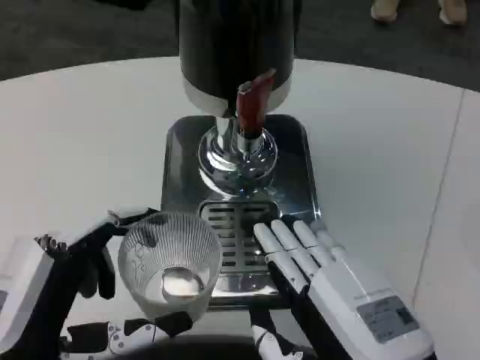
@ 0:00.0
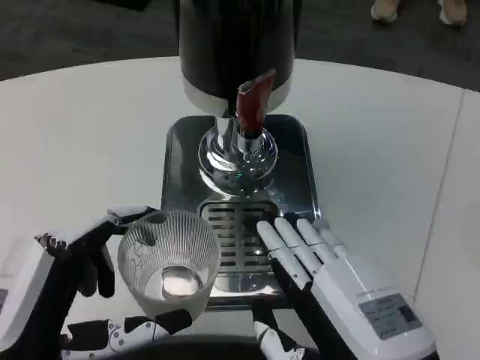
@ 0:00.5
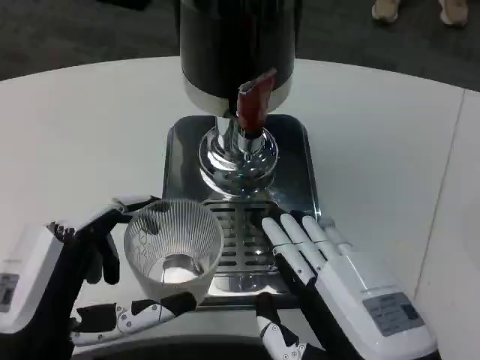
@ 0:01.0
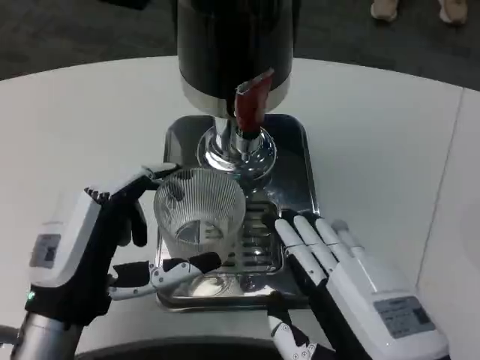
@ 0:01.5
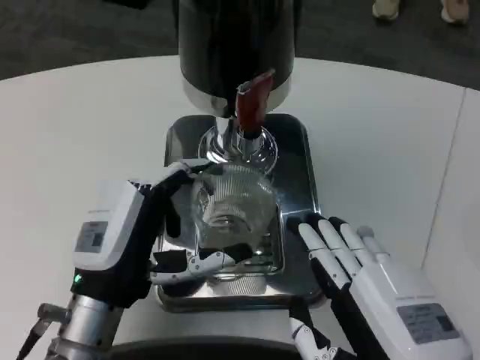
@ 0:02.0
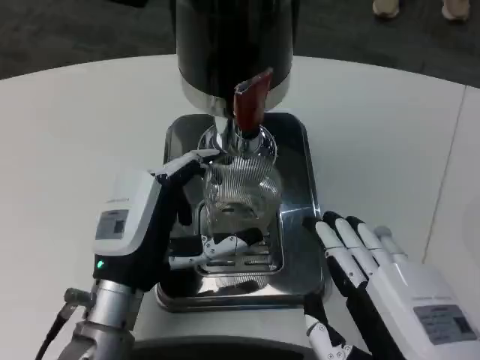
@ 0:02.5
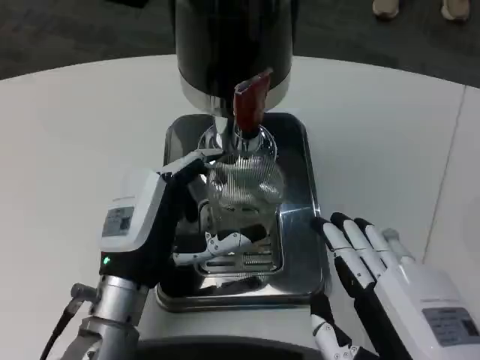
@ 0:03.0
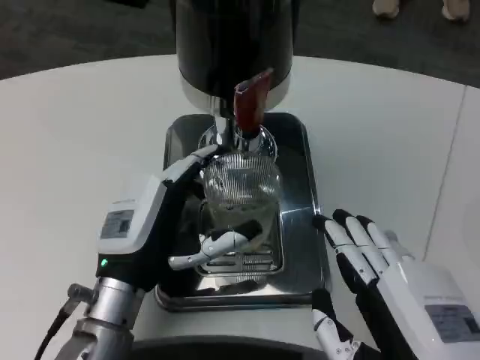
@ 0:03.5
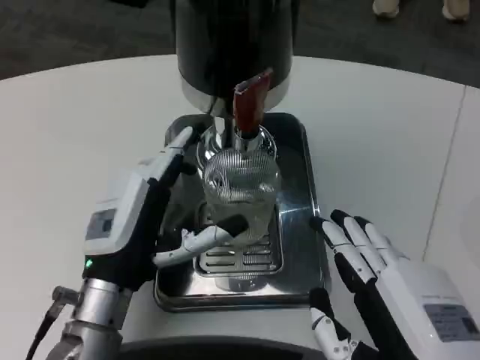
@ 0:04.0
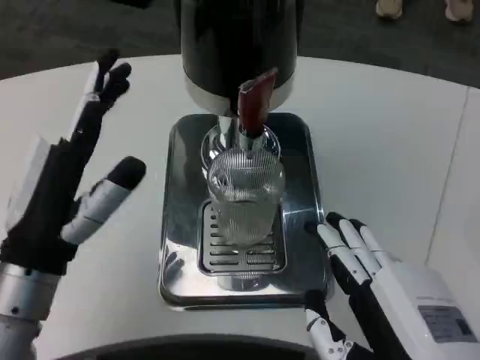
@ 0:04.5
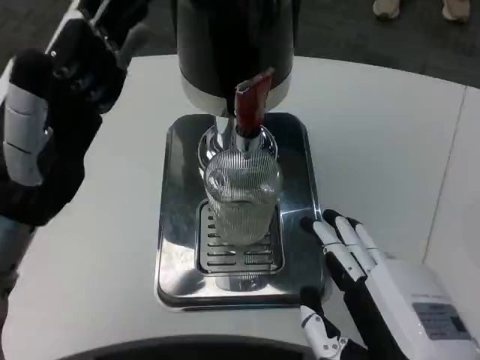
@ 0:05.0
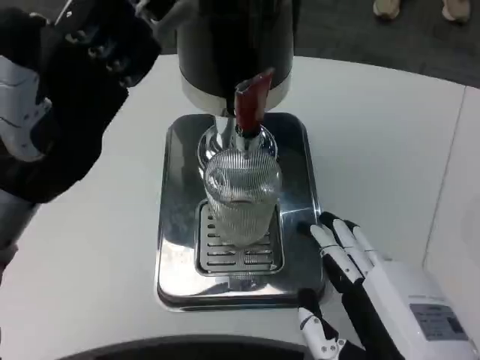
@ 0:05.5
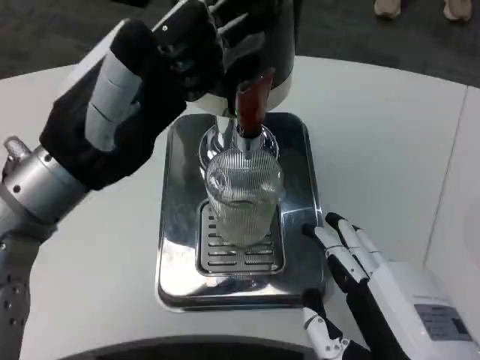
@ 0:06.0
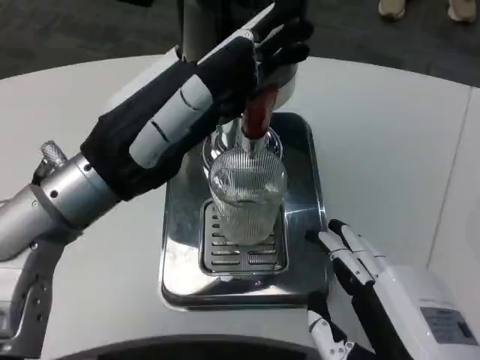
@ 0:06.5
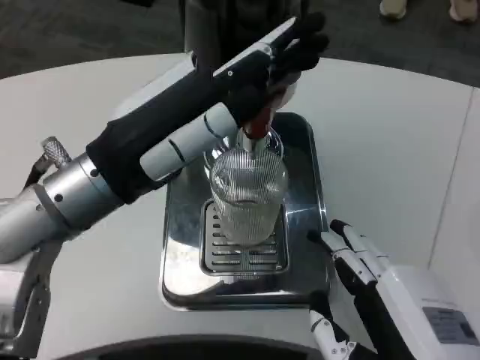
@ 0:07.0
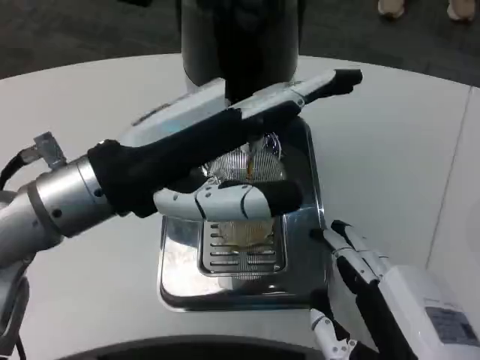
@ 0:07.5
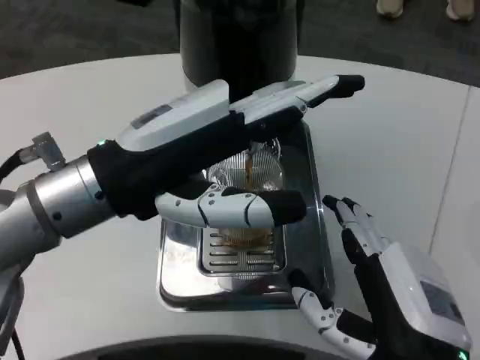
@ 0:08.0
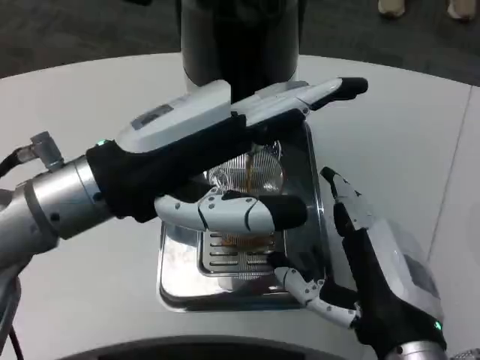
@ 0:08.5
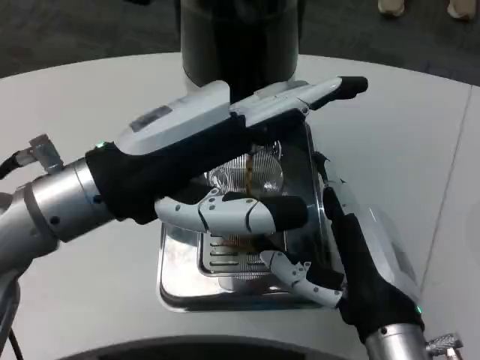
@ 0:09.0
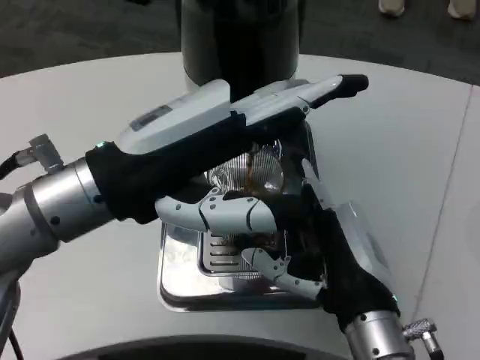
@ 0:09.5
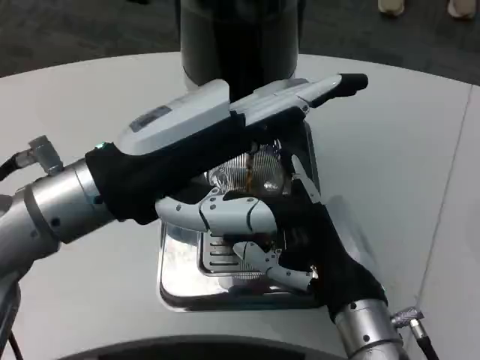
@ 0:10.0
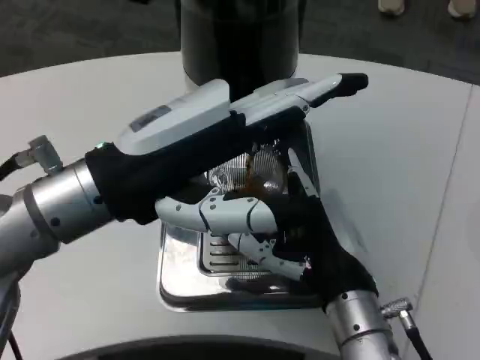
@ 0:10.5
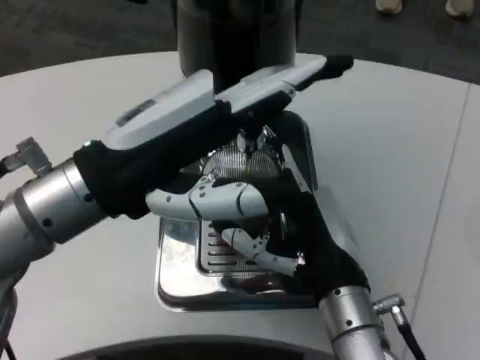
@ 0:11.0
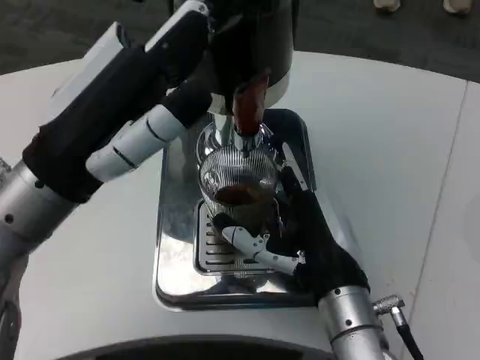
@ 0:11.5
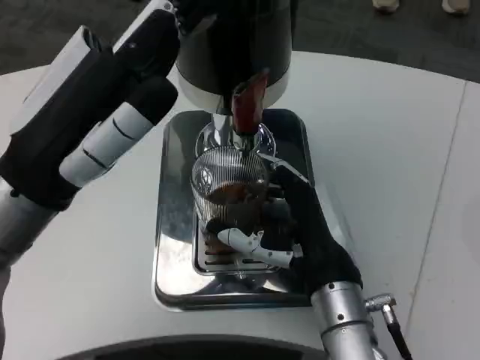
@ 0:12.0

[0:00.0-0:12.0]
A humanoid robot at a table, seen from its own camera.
Task of the whole recording: Grasp the cup under the faucet to collect the drink, then remove the cup.
0:00.0 to 0:02.0: The left hand travels forward and to the right by some 10 cm.
0:04.0 to 0:06.0: The left hand is displaced upward by roughly 15 cm.
0:08.0 to 0:10.0: The right hand travels forward by roughly 10 cm.

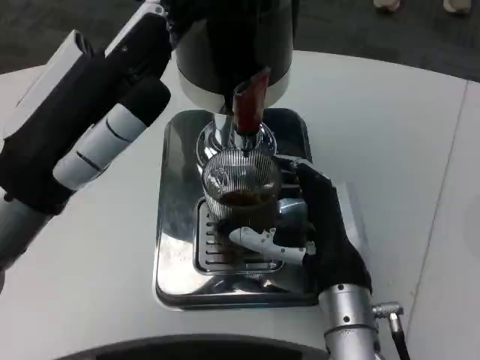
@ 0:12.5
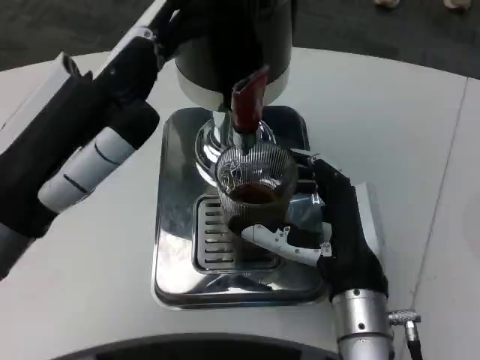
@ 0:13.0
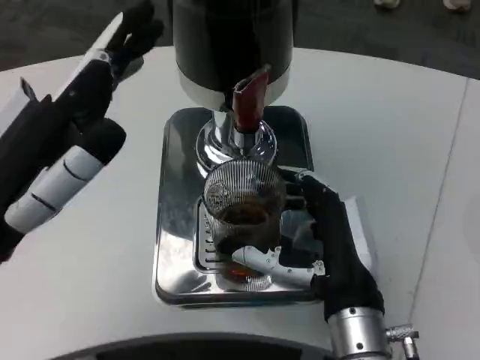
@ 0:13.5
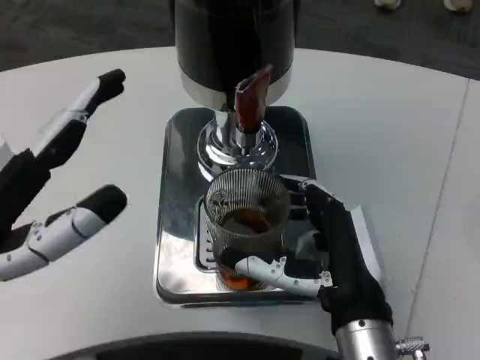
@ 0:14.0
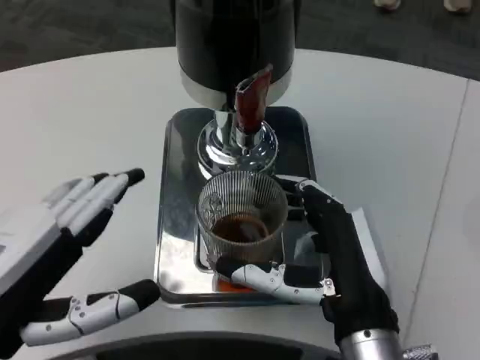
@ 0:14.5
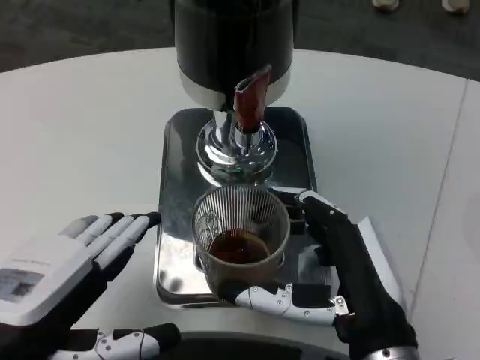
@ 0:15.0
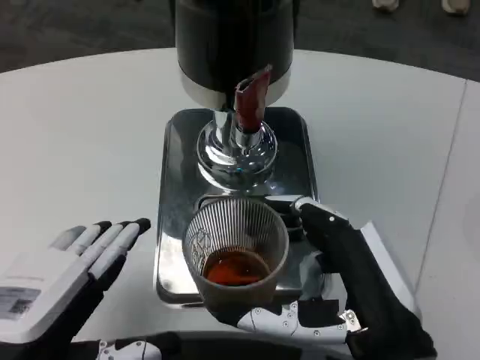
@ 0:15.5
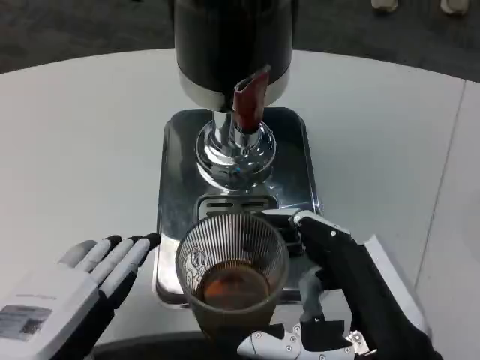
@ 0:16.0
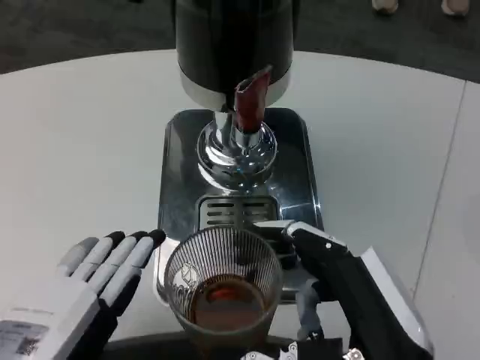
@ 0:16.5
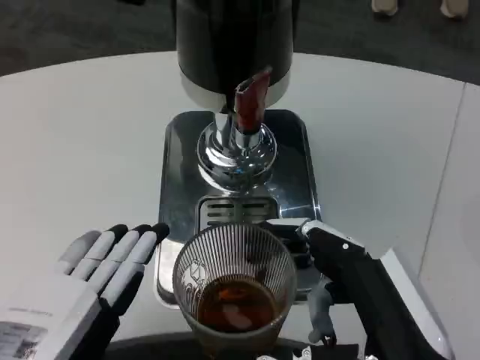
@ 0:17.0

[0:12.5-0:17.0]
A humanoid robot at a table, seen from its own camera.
Task of the whole recording: Grasp the cup under the faucet to collect the drink, then remove the cup.
0:12.5 to 0:14.5: The right hand is displaced backward by about 5 cm. The left hand goes about 10 cm backward and downward.
0:14.5 to 0:17.0: The left hand shifts roughly 5 cm backward; the right hand shifts about 10 cm backward.

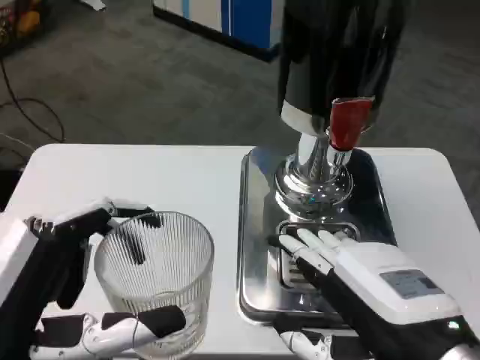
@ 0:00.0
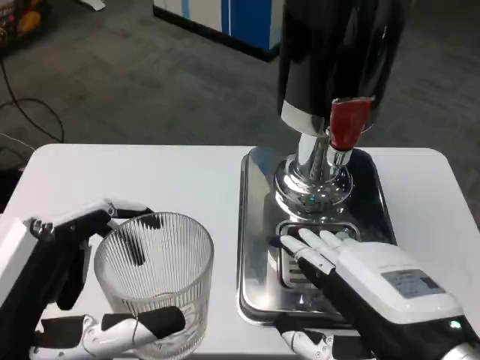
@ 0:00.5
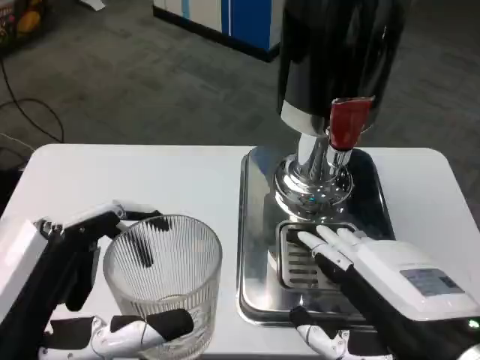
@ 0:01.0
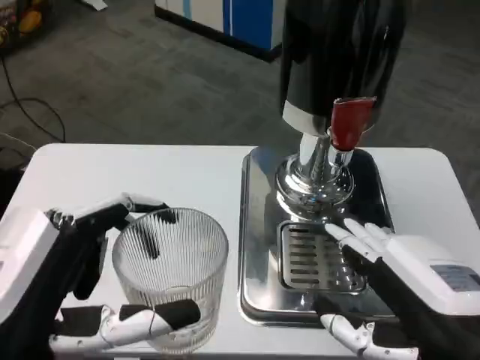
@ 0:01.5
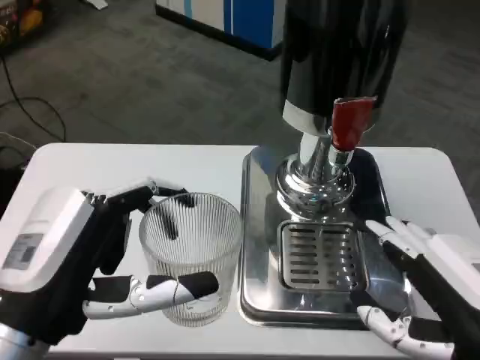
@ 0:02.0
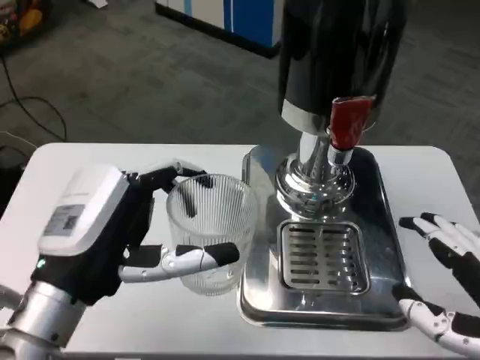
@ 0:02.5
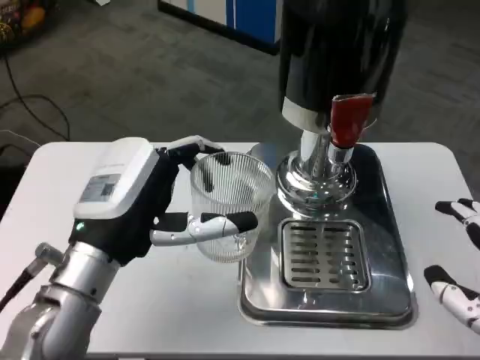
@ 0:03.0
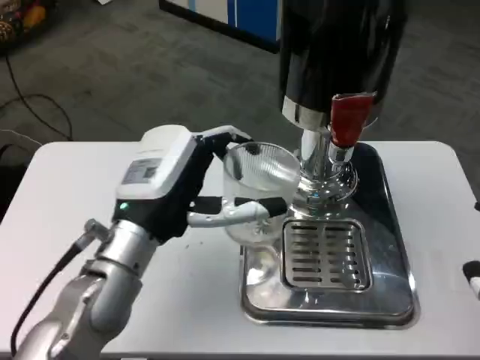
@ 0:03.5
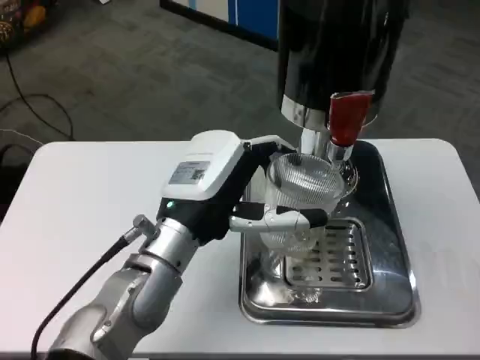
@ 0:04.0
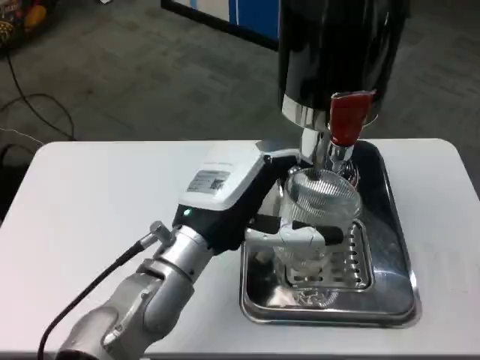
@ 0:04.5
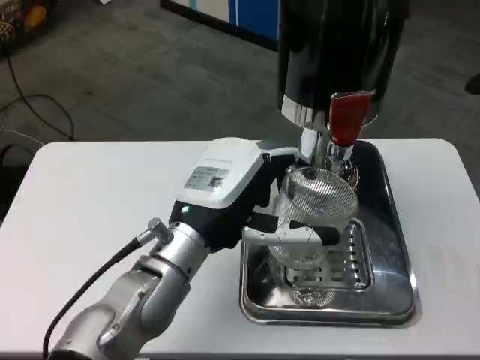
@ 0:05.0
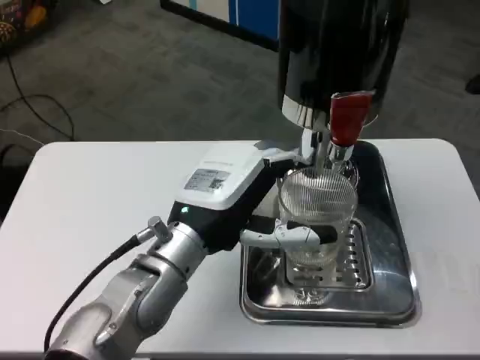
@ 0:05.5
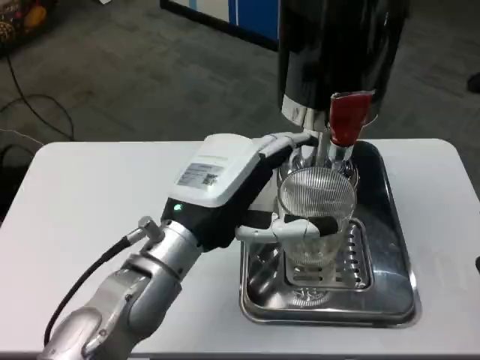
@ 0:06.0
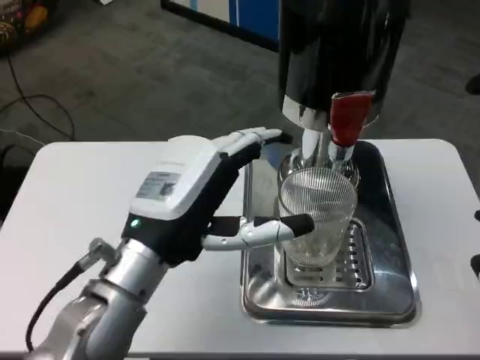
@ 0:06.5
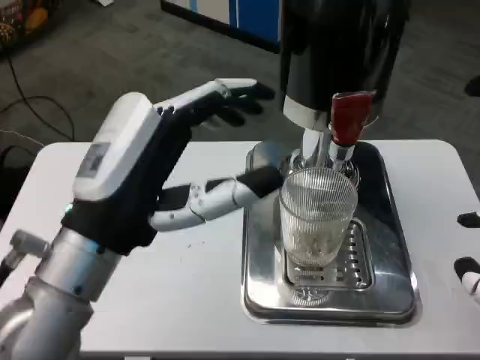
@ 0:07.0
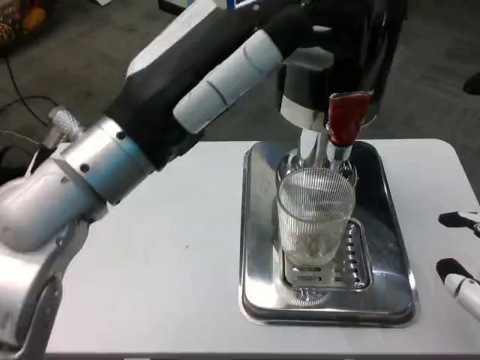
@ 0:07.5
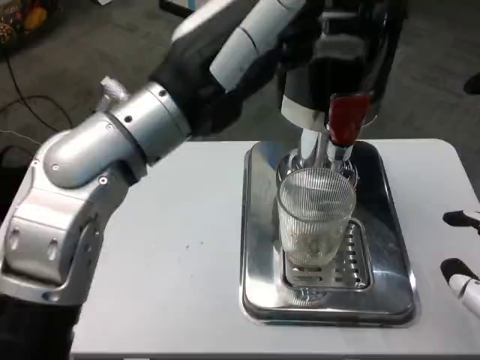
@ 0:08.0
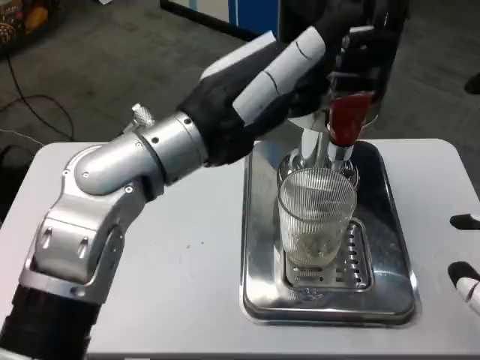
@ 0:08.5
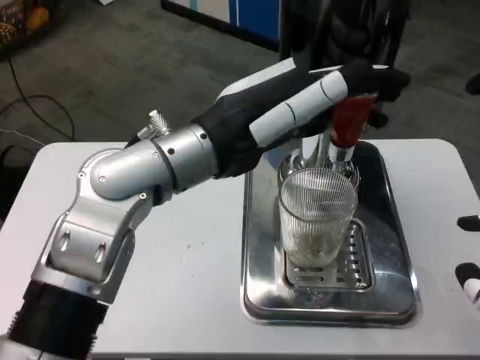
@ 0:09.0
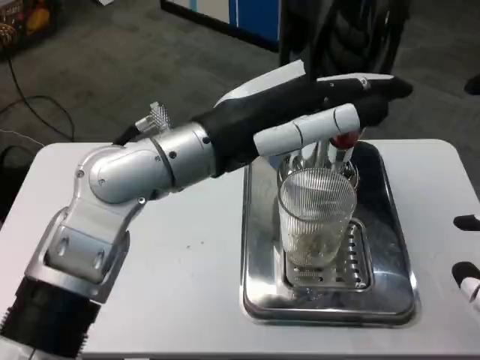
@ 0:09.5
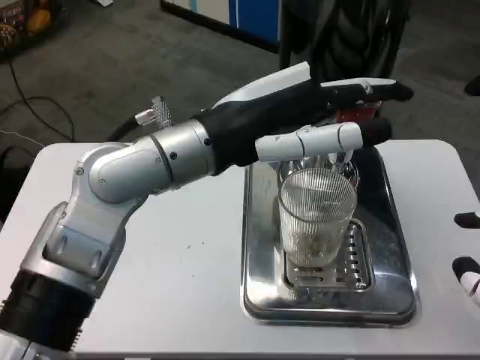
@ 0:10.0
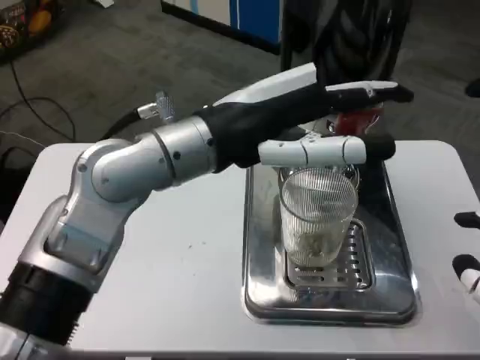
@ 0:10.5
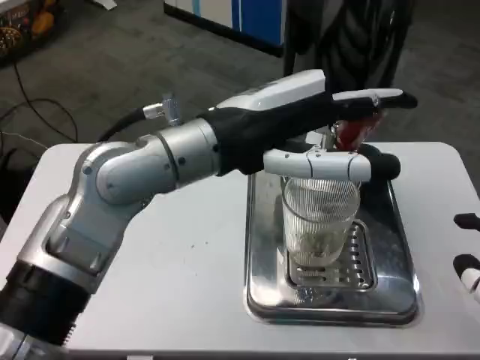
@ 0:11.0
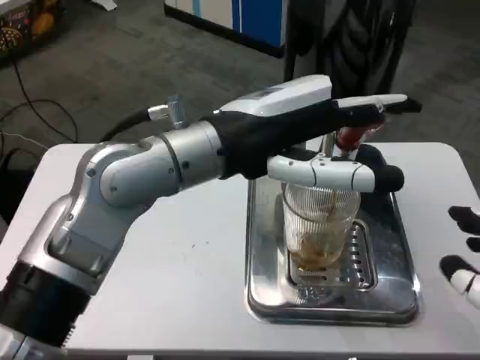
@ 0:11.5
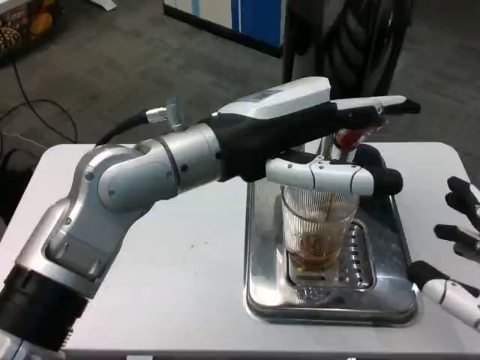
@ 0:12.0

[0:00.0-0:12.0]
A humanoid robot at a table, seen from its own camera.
Task of the whole recording: Grasp the cup under the faucet to collect the drink, then remove the cup.
0:00.0 to 0:02.0: The left hand shifts by approximately 5 cm.
0:02.0 to 0:04.0: The right hand heads to the right, covering some 5 cm, while the left hand is displaced forward and to the right by about 15 cm.
0:04.0 to 0:06.0: The hands move only a little.
0:06.0 to 0:08.0: The left hand shifts about 15 cm upward.
